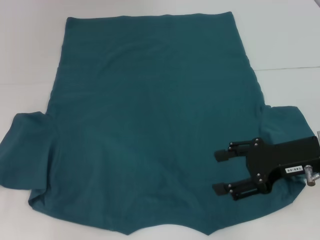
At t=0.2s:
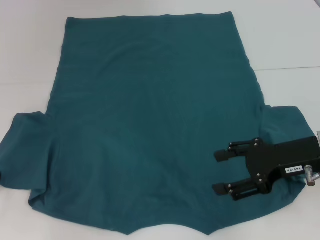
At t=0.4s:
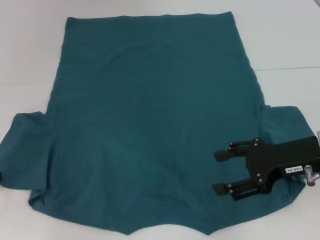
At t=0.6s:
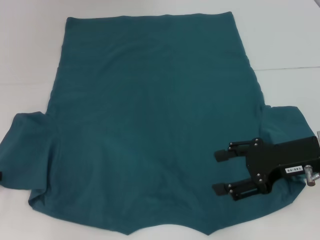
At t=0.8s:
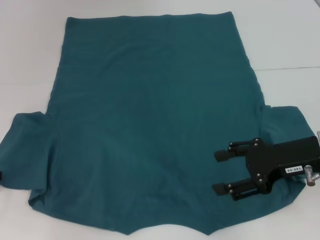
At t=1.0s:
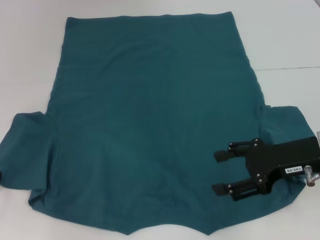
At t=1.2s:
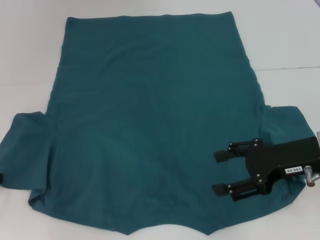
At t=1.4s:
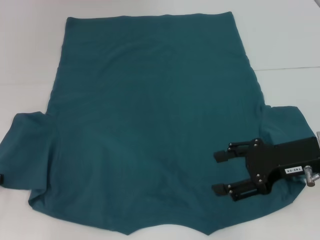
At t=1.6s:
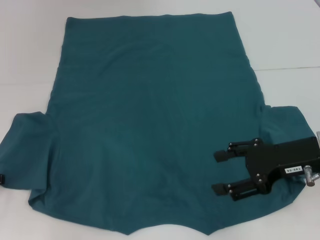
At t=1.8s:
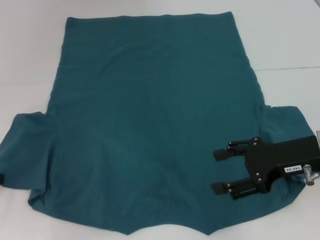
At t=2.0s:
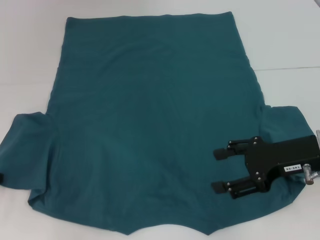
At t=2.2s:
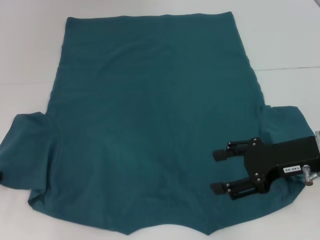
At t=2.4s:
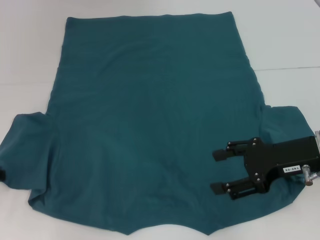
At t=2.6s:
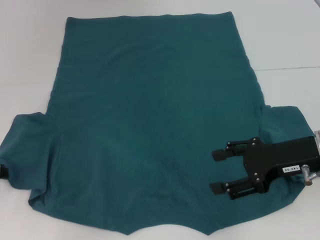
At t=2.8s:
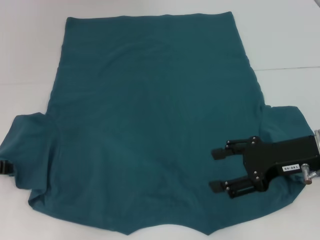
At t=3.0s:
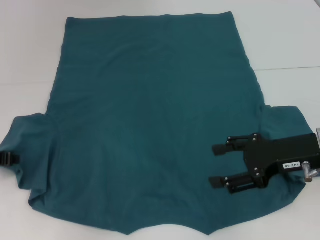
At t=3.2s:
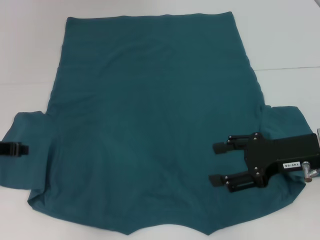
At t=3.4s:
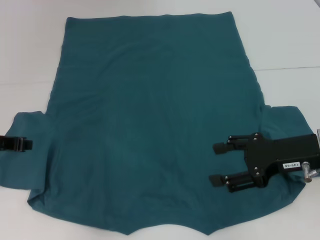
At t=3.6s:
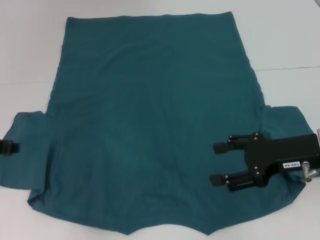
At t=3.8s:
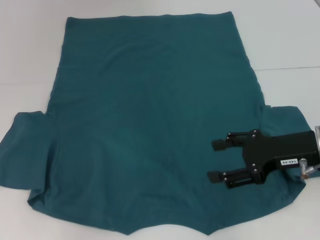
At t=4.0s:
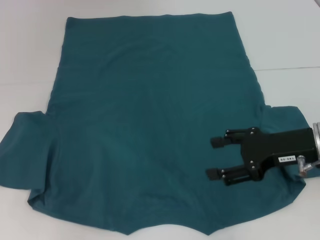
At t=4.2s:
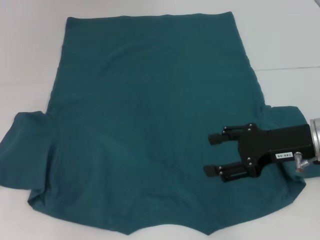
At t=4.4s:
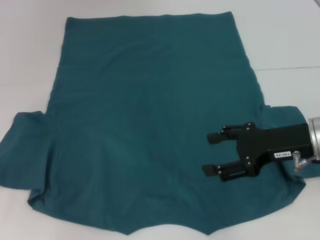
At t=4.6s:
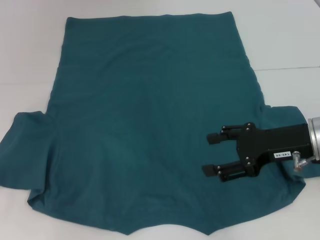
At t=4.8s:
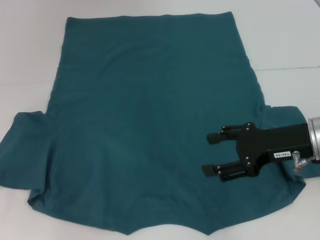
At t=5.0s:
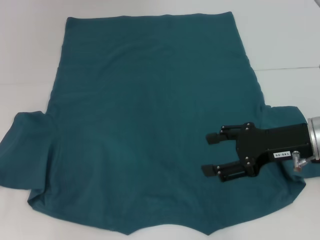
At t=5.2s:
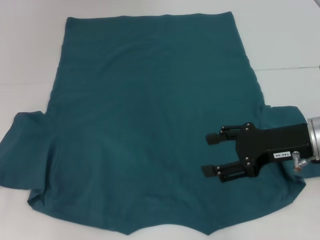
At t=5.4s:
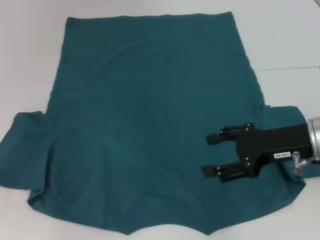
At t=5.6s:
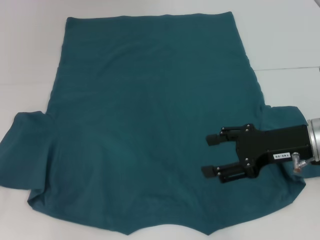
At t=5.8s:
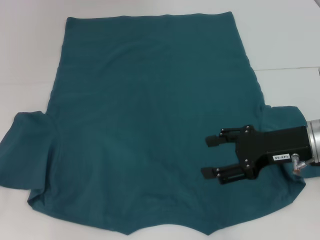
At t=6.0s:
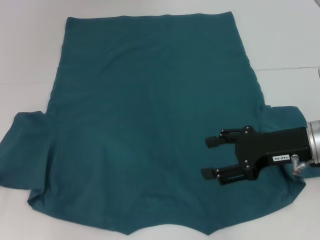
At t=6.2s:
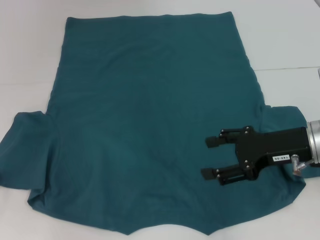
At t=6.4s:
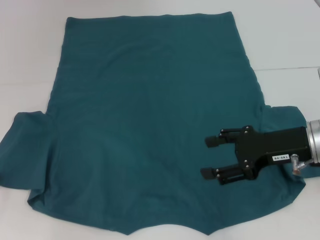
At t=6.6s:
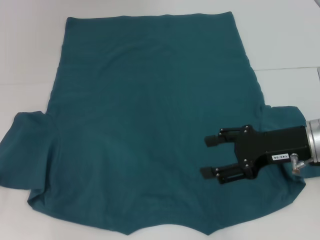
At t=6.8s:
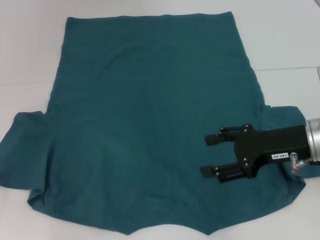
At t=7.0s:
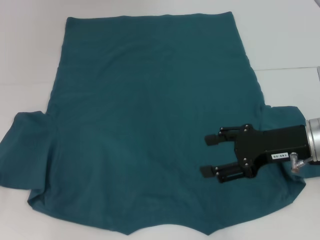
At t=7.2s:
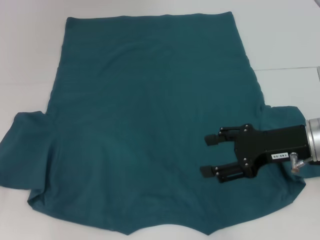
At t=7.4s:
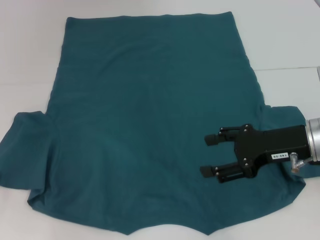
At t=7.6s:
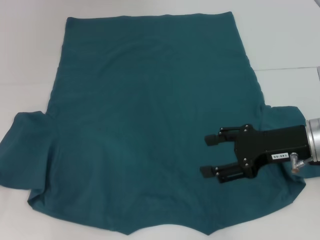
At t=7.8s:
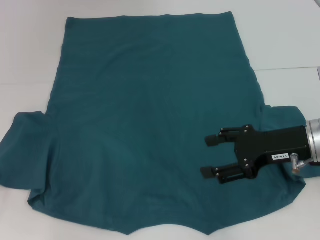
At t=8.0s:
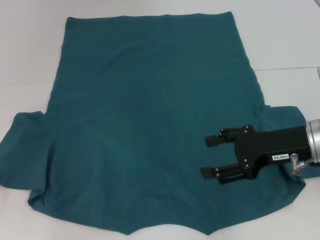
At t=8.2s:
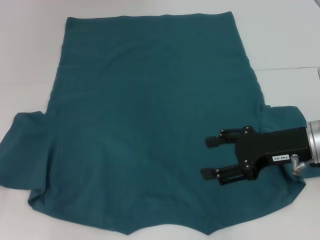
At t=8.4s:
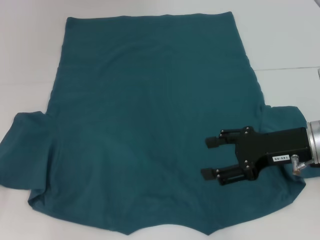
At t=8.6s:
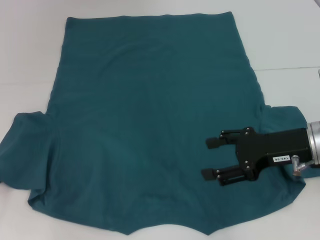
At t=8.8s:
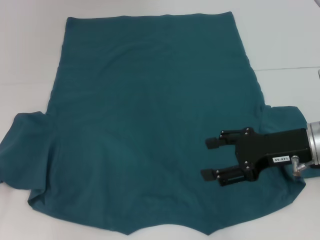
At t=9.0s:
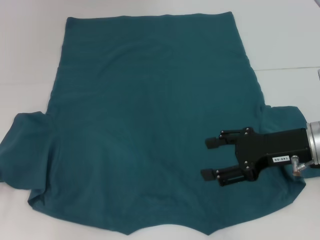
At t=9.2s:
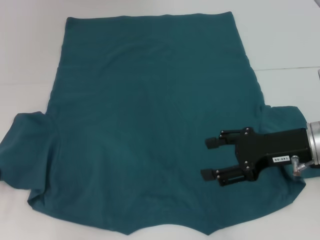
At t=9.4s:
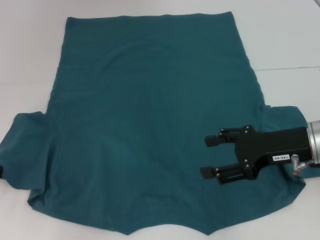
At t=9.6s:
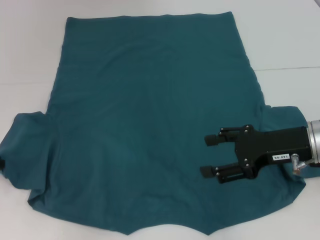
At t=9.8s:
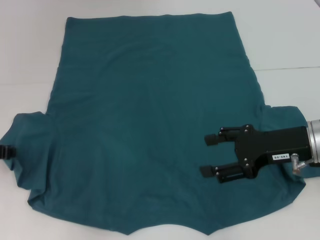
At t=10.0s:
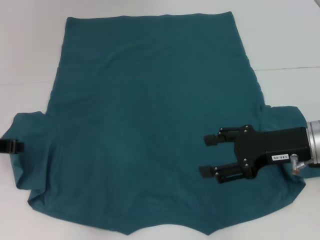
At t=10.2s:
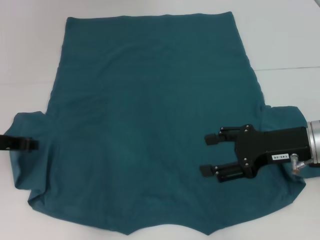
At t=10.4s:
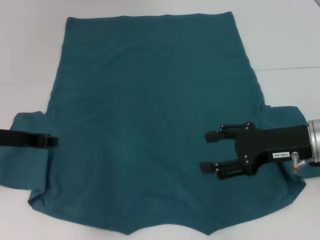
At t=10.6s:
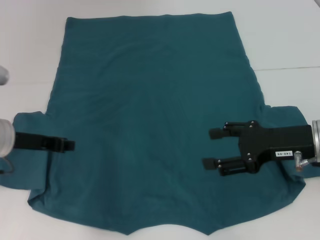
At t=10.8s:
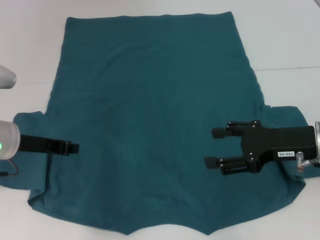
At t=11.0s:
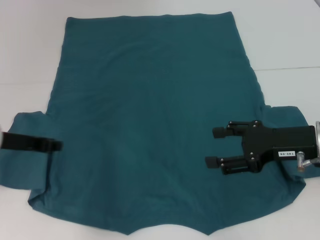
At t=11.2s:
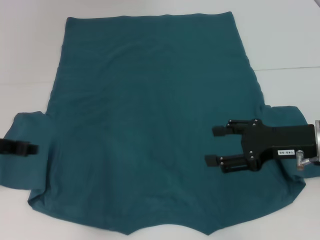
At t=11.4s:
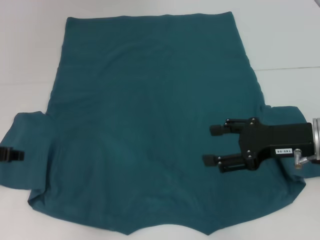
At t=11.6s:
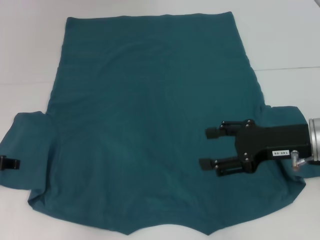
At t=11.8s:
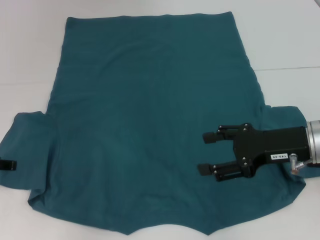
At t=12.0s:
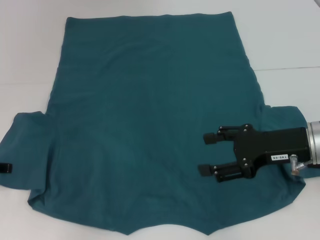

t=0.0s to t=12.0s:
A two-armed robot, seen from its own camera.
t=1.6s to t=3.0s: The left gripper closes its fingers.
t=3.0s to t=4.4s: The left gripper opens up.
t=4.4s to t=6.0s: The grippers stay close to where they were, moving slightly.
t=6.0s to t=7.6s: Both grippers stay about where they are.
t=9.0s to t=10.4s: The left gripper goes about 5 cm to the right.
t=10.4s to t=12.0s: The left gripper heads to the left, covering about 5 cm, and opens.

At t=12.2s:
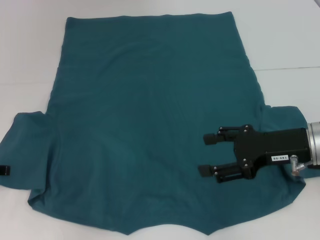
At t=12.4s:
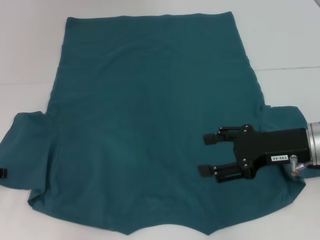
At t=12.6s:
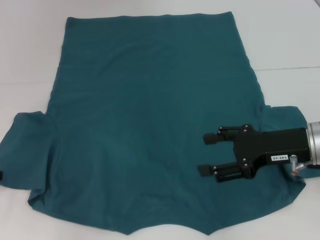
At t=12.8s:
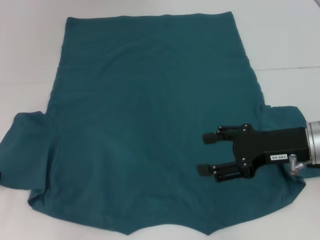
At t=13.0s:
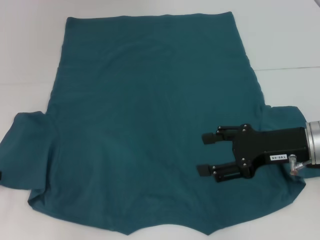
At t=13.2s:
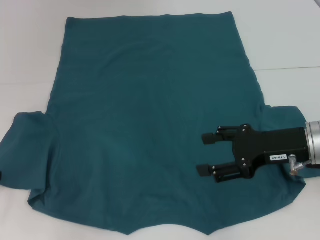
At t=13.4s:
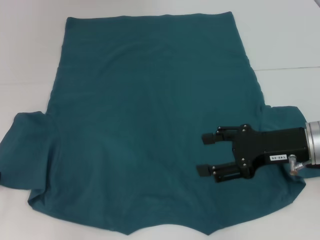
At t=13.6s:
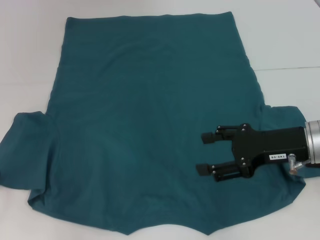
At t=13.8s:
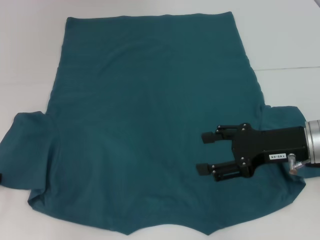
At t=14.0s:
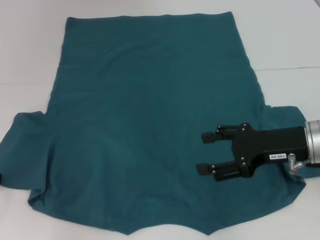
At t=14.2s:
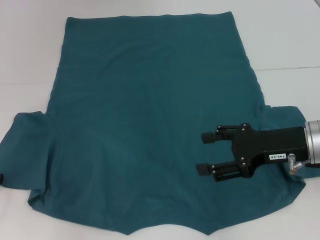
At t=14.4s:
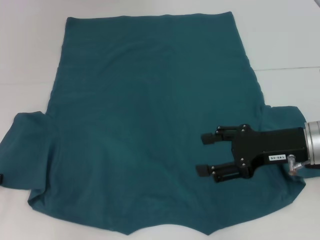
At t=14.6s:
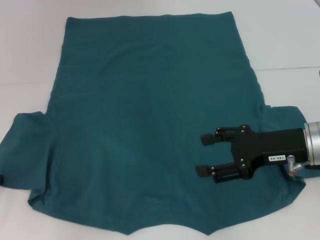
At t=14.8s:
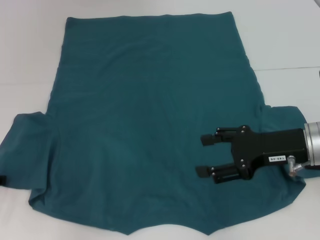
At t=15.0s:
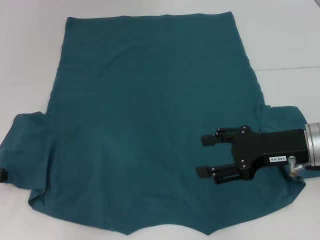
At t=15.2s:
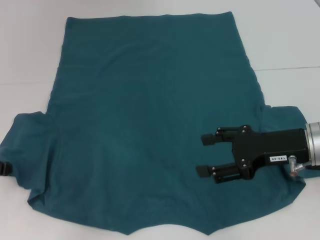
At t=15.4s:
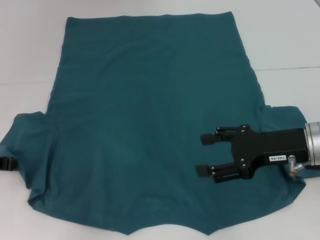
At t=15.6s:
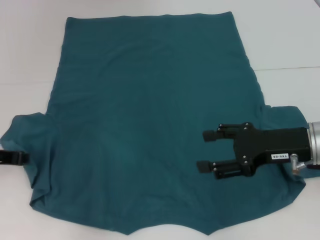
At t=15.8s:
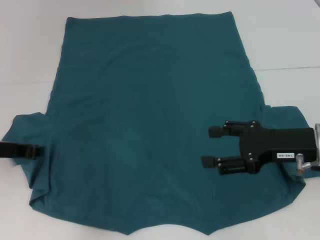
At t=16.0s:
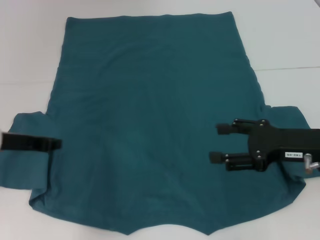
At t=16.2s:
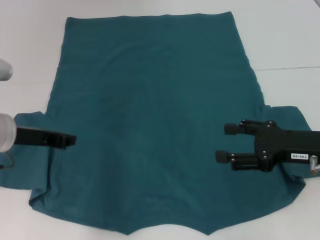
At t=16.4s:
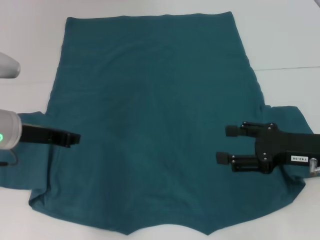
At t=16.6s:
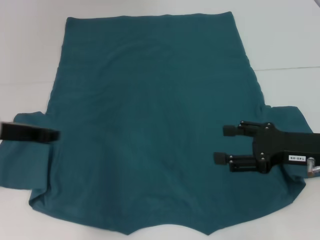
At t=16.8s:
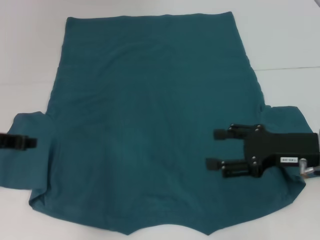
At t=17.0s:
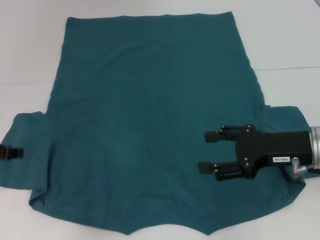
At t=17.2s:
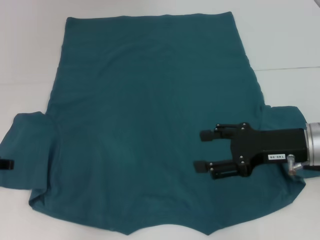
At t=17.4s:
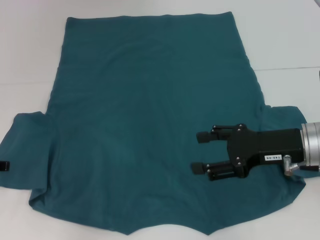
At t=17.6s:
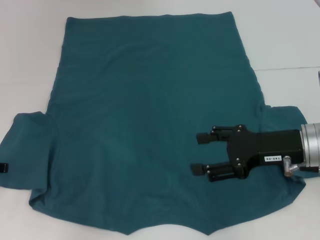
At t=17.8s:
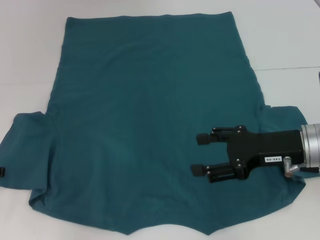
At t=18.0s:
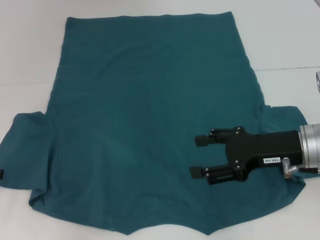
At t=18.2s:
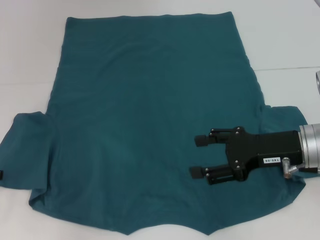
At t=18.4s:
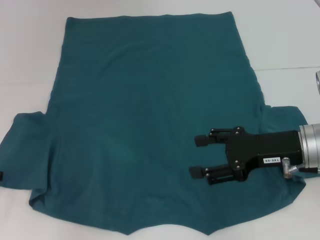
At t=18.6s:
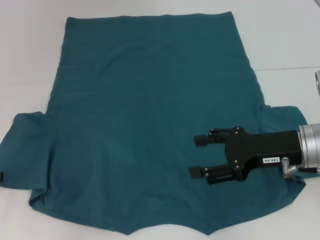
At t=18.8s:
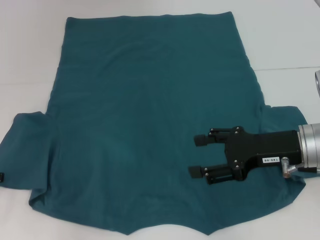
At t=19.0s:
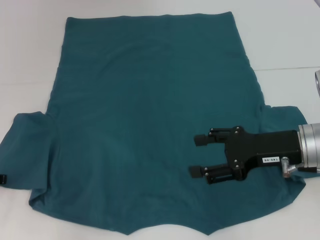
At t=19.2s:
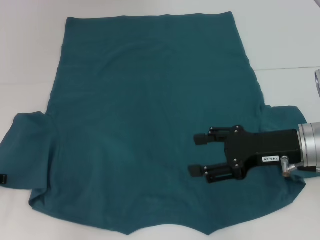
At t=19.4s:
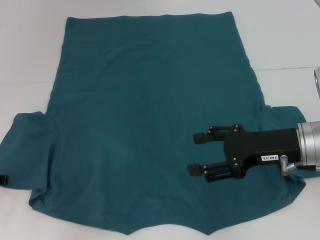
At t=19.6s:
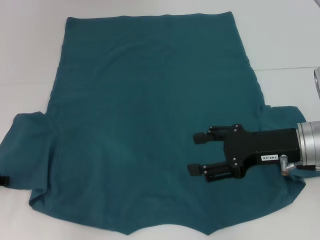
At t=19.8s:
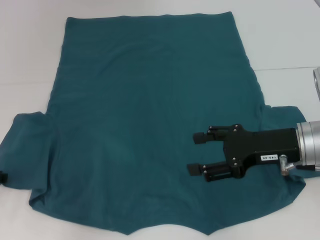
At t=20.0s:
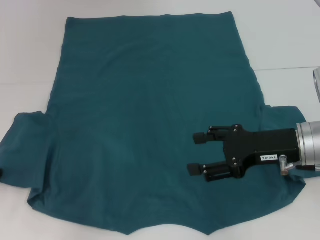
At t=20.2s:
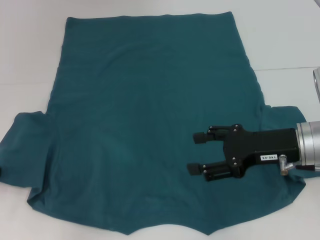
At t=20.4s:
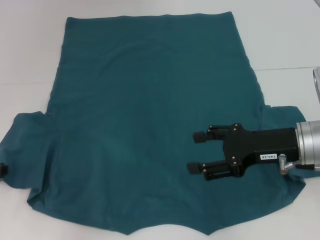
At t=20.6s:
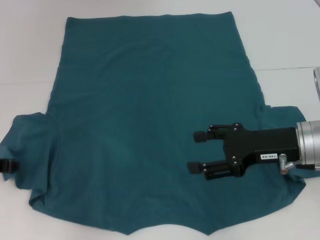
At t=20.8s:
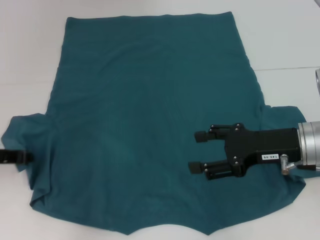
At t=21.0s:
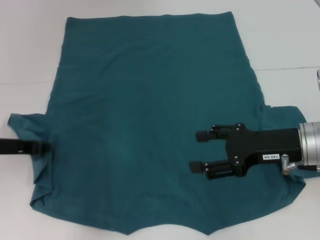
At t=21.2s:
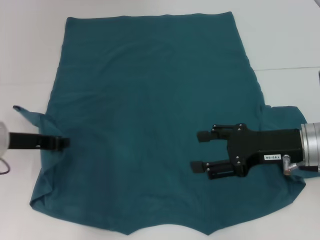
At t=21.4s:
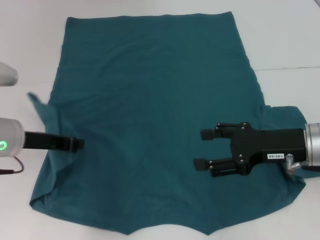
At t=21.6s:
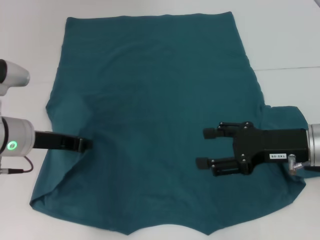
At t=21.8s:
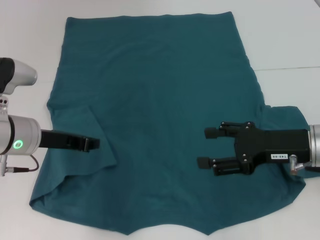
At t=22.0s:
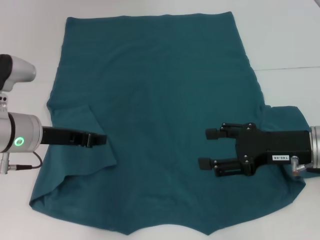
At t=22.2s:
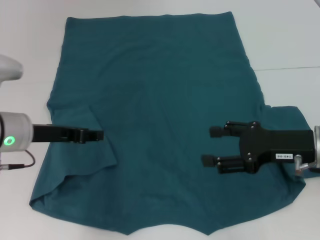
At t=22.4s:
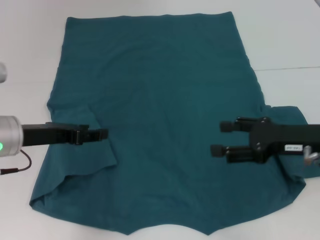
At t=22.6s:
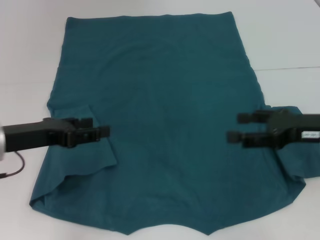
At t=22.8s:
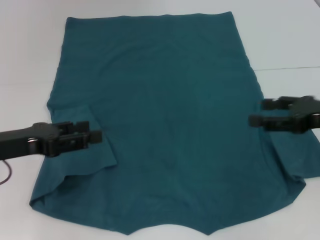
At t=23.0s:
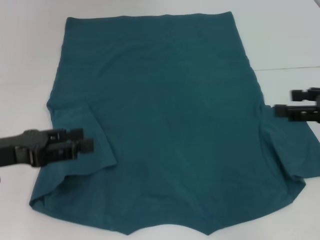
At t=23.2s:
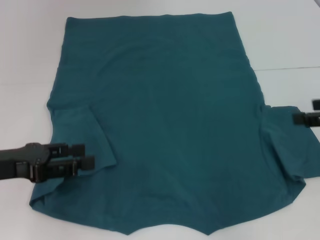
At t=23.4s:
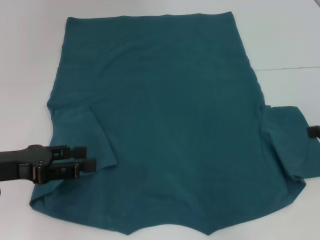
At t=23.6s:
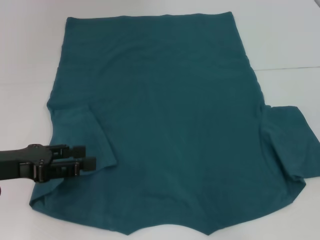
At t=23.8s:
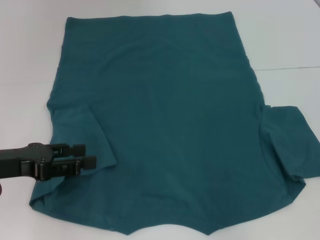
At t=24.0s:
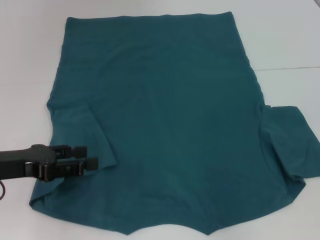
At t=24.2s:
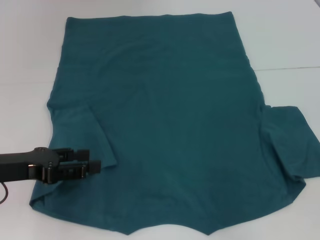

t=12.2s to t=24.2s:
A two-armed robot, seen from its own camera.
Step, t=12.2s to t=21.6s: Fold the bottom left sleeve with your left hand.
t=12.2s to t=13.8s: The grippers move only a little.
t=15.2s to t=16.6s: The left gripper goes roughly 5 cm to the right.
t=16.6s to t=18.2s: The left gripper goes roughly 10 cm to the left, and opens up.
t=19.8s to t=21.2s: The left gripper shifts some 5 cm to the right.
t=21.2s to t=22.6s: The right gripper moves to the right, approximately 5 cm. Meanwhile the left gripper opens.
t=22.6s to t=24.2s: The right gripper goes about 10 cm to the right.
